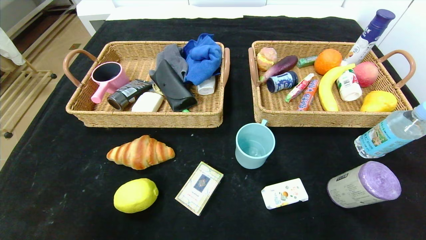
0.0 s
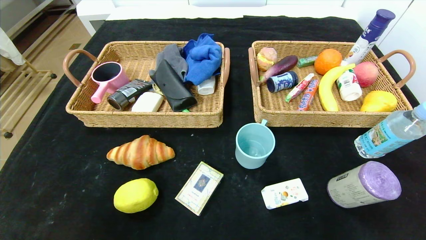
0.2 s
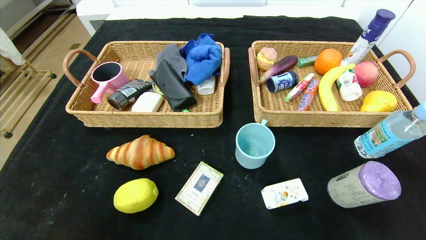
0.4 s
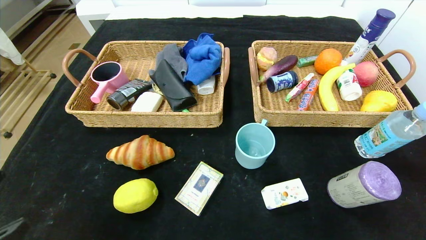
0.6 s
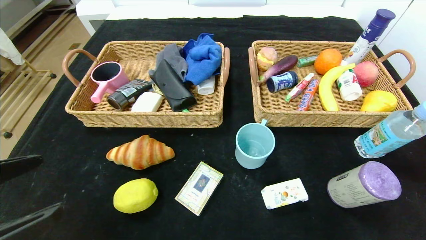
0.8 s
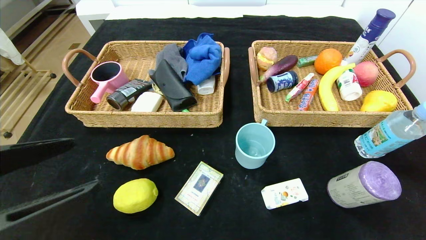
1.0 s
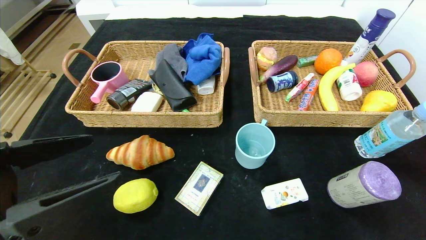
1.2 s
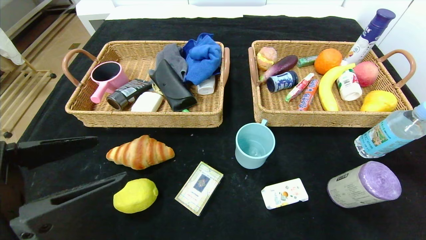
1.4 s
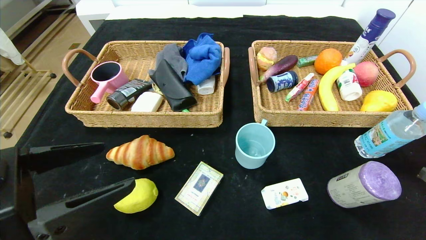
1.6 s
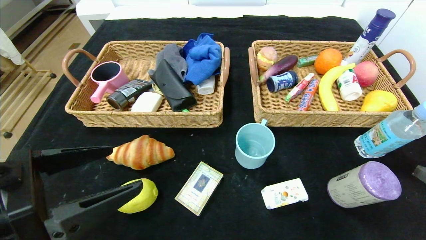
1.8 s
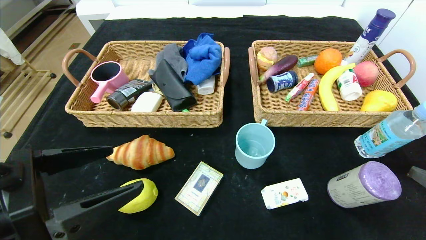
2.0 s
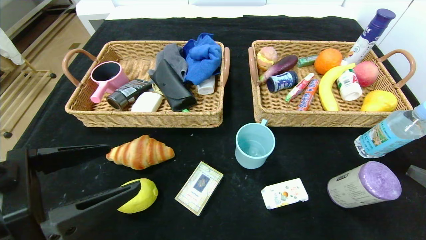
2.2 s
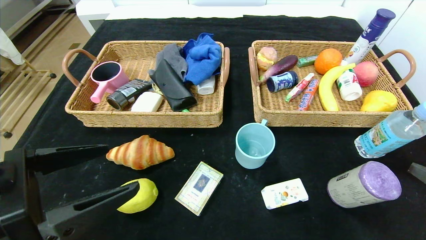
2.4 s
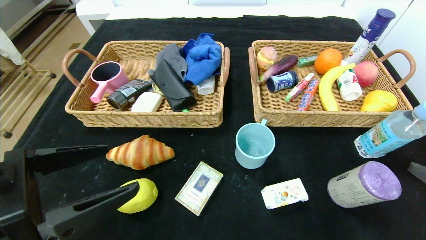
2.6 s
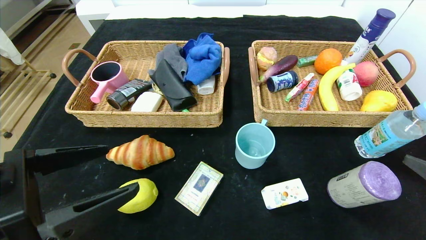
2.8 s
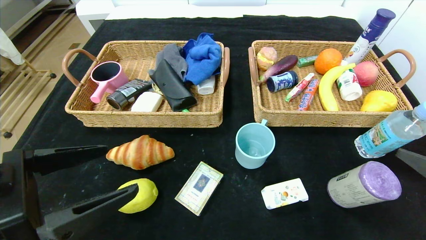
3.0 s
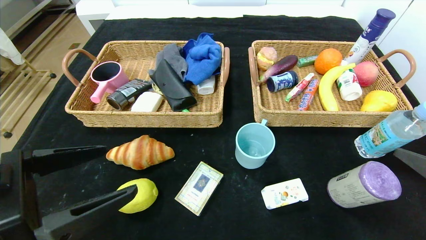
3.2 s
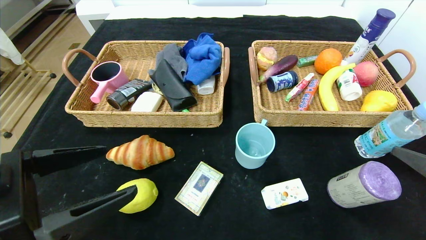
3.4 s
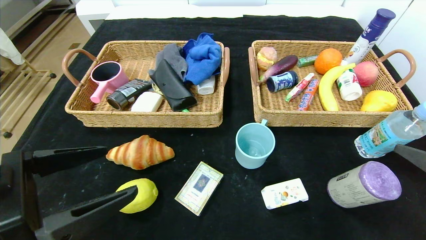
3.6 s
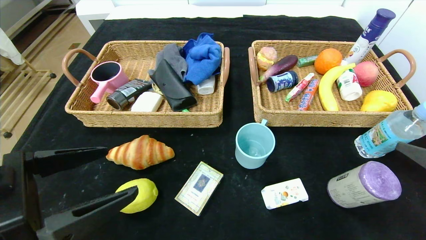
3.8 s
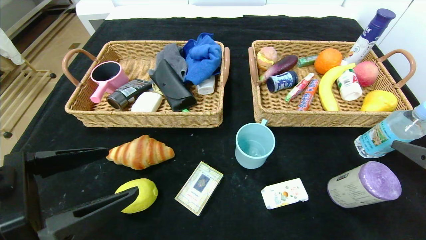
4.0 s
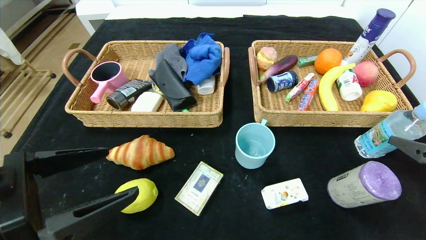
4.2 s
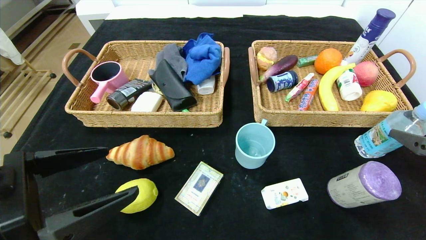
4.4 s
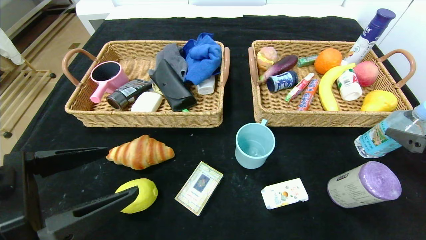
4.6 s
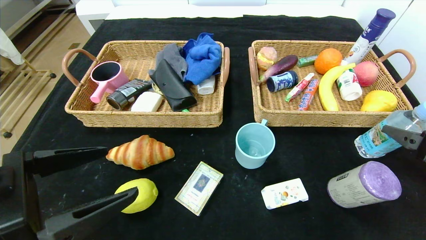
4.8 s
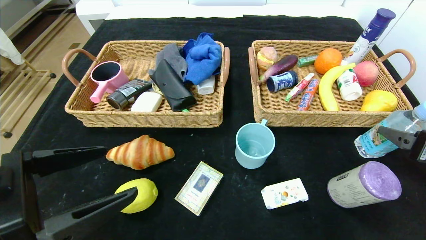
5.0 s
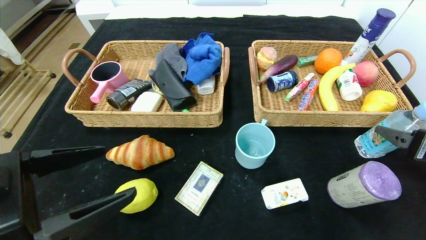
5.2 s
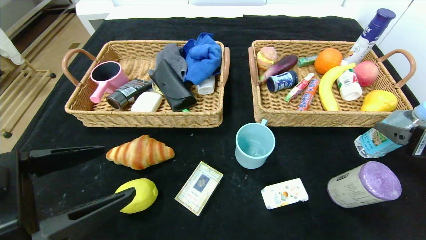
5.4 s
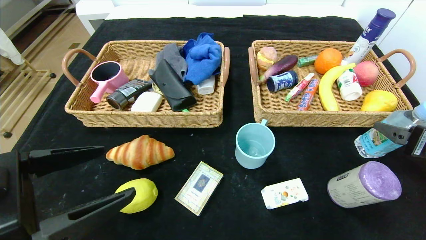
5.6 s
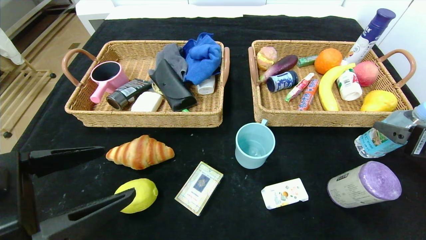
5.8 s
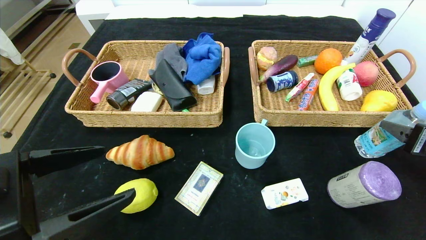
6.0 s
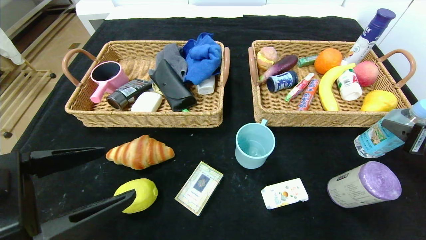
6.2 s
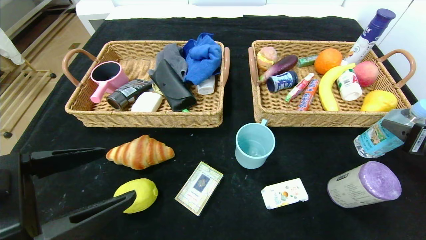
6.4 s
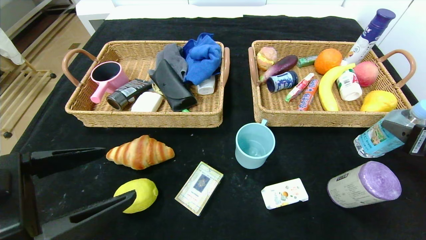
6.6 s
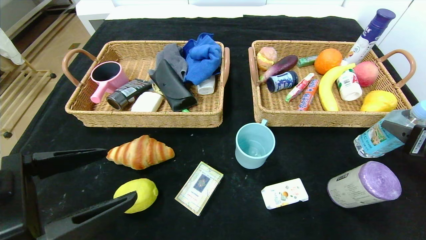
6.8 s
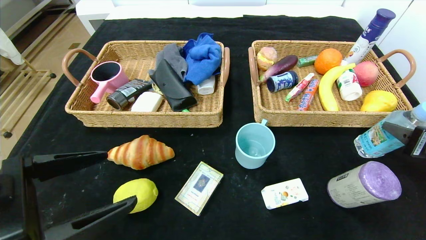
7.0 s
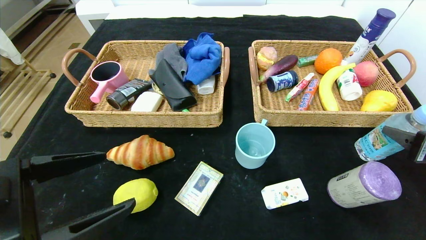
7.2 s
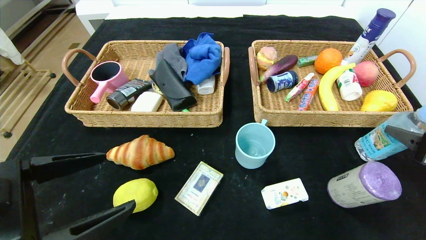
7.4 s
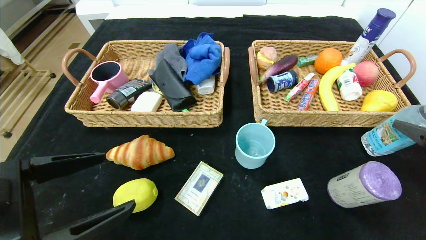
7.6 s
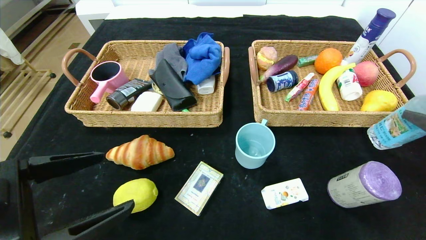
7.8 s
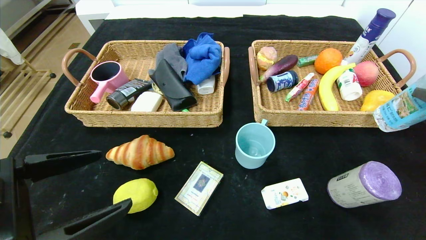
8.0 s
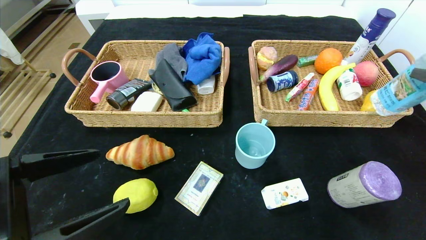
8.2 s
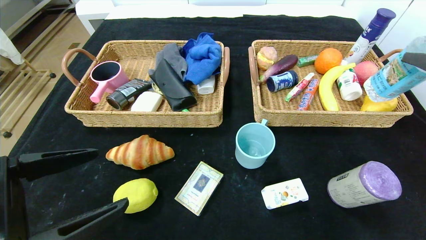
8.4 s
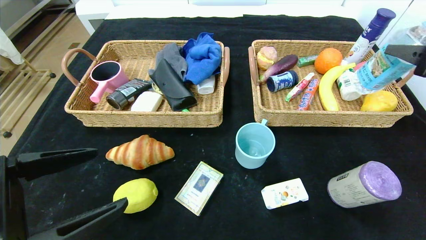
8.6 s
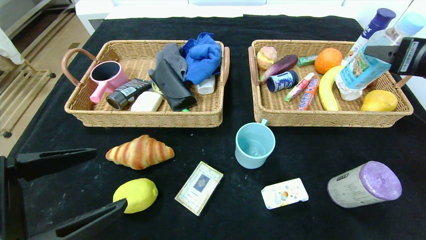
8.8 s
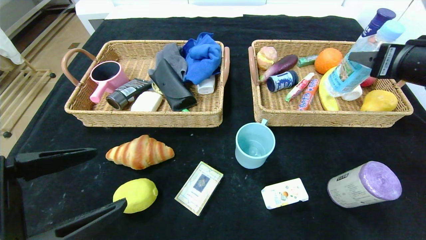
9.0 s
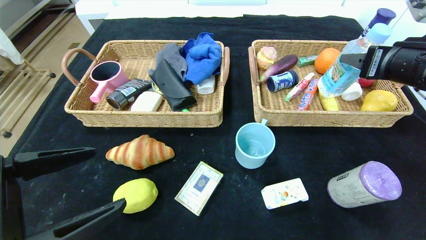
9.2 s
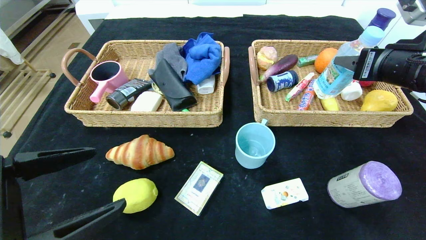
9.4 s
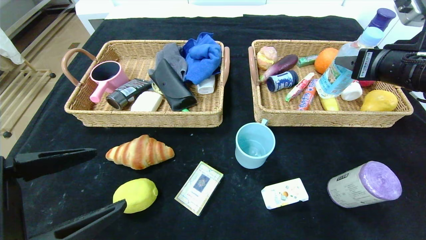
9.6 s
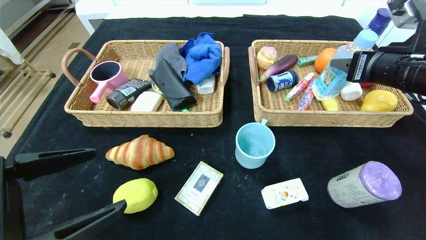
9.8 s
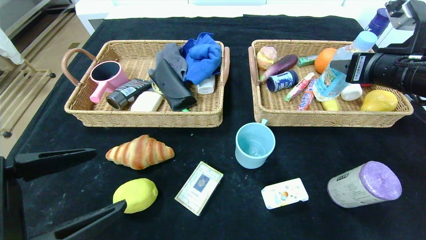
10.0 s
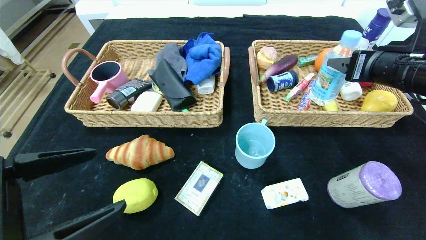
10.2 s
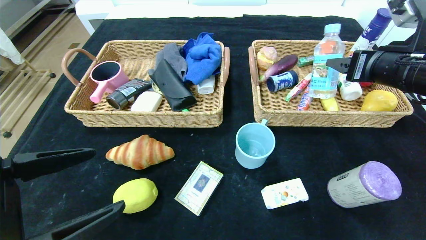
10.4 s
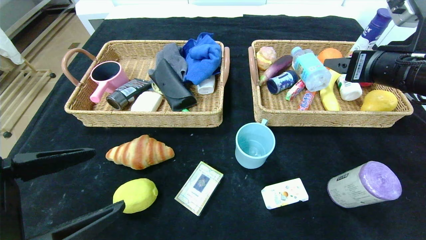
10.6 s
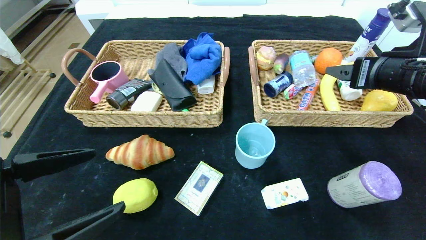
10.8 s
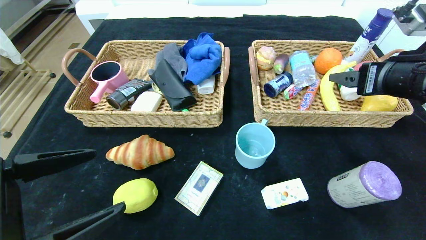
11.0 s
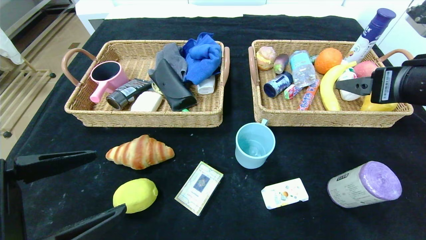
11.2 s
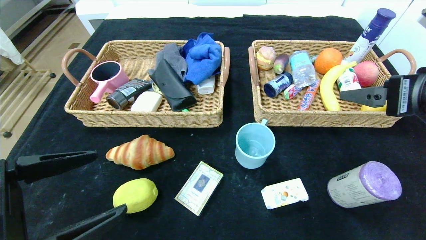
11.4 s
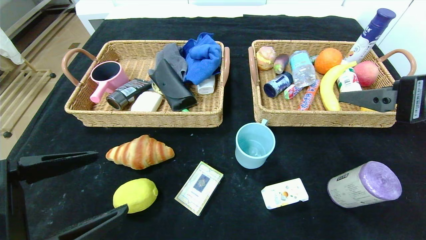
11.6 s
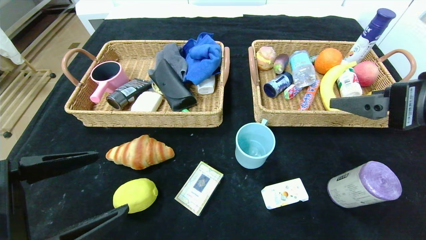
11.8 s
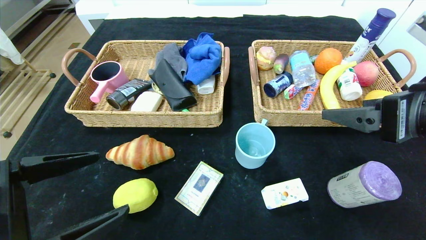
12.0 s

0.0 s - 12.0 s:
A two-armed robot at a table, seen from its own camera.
Step, 0.0 s - 10.6 s: Grasp the soda water and put it in the right basket.
0.0 s - 1.6 s: The left gripper heads forward, upward and to the right, covering some 20 cm, while the right gripper shifts about 15 cm forward and upward.
1.6 s - 3.0 s: The grippers stay close to where they were, moving slightly.
3.0 s - 4.4 s: The right gripper moves roughly 5 cm.
4.4 s - 6.0 s: The right gripper closes.
6.0 s - 7.6 s: The grippers make only small movements.
7.6 s - 9.0 s: The right gripper goes some 15 cm upward, forward and to the left.
9.0 s - 10.4 s: The right gripper opens.
10.4 s - 12.0 s: The right gripper travels backward by roughly 10 cm.

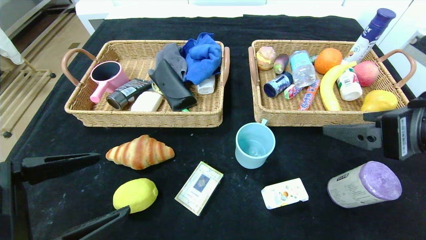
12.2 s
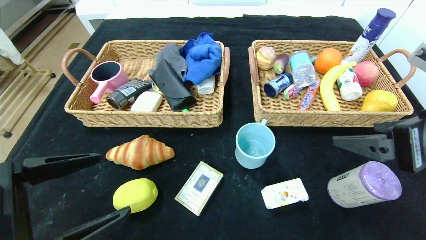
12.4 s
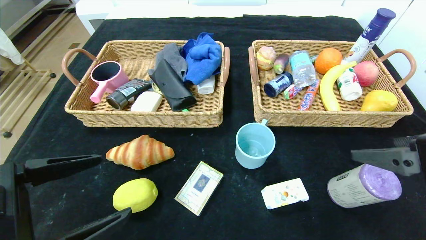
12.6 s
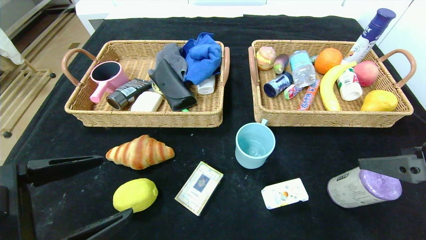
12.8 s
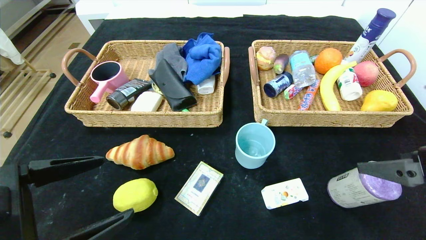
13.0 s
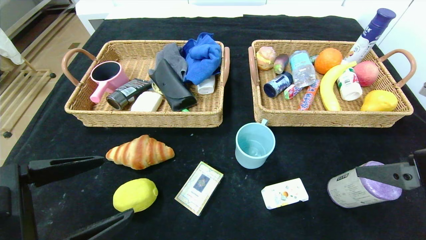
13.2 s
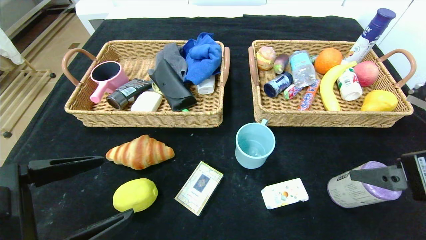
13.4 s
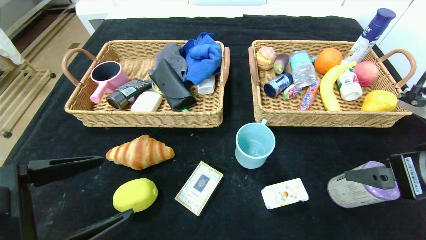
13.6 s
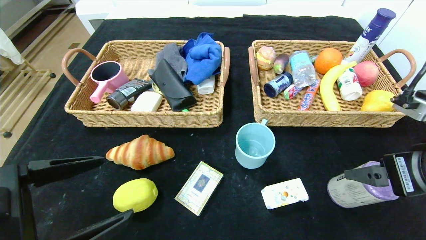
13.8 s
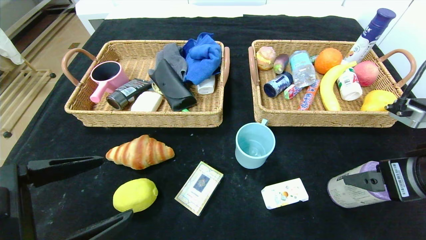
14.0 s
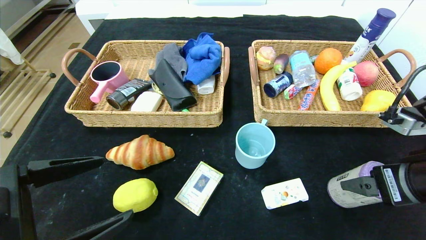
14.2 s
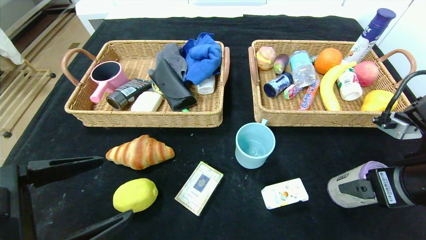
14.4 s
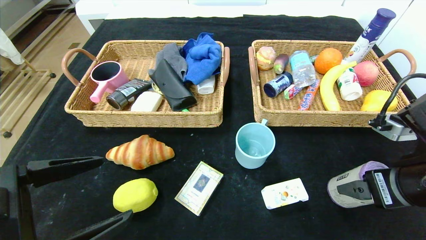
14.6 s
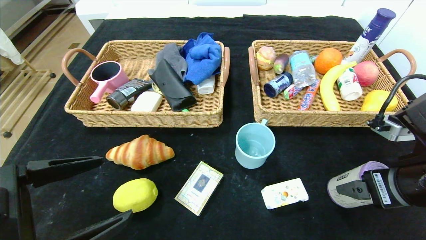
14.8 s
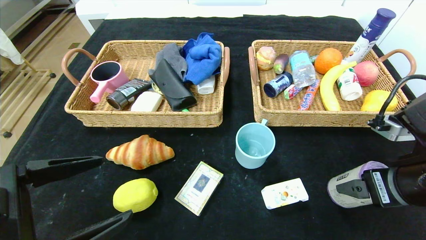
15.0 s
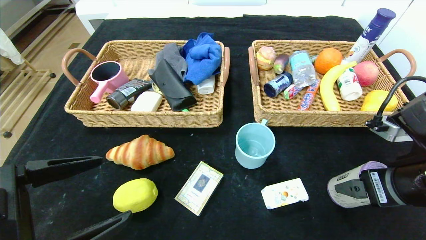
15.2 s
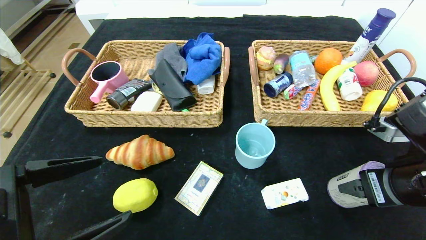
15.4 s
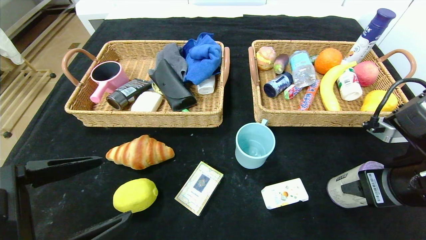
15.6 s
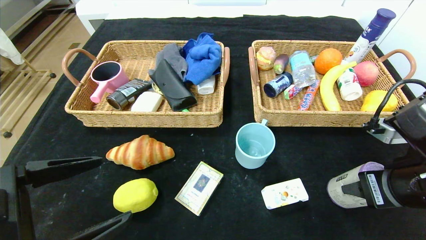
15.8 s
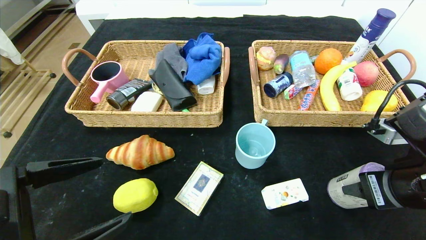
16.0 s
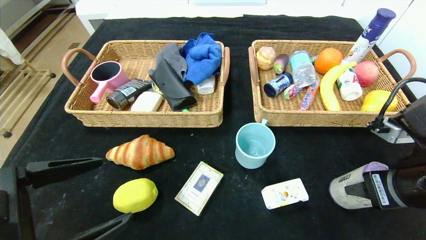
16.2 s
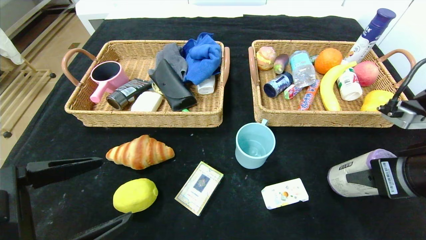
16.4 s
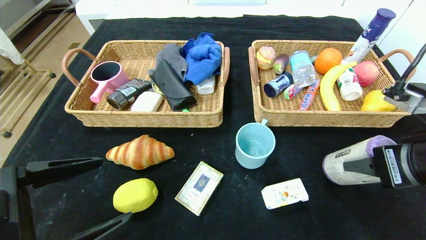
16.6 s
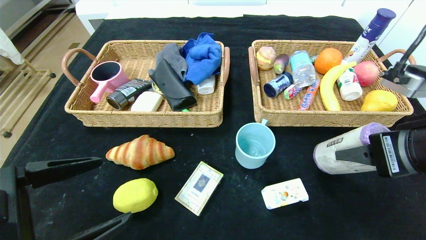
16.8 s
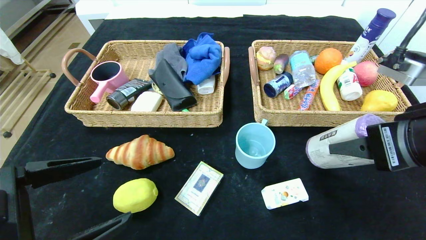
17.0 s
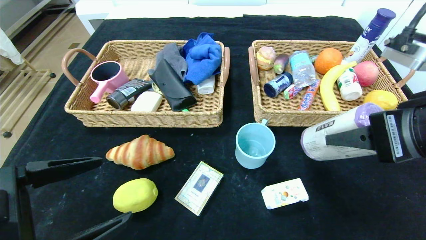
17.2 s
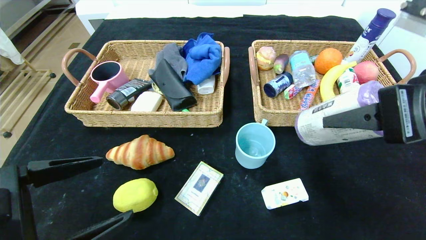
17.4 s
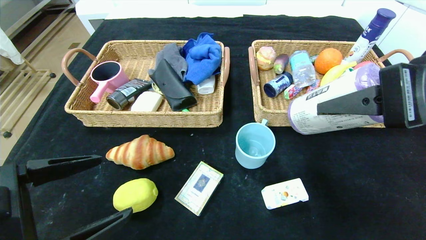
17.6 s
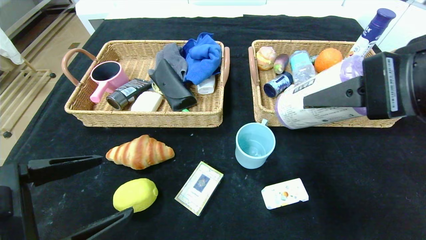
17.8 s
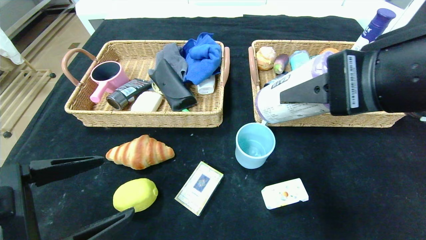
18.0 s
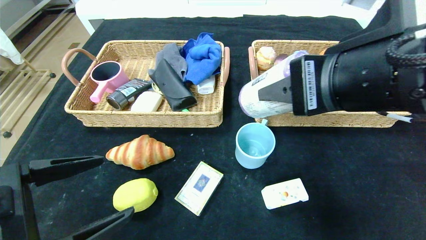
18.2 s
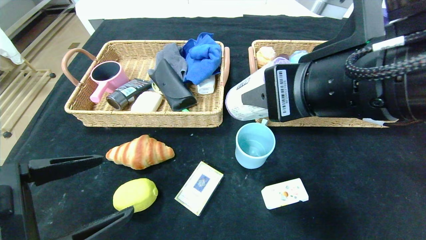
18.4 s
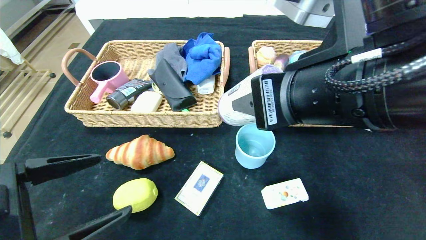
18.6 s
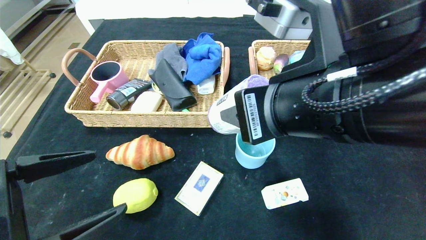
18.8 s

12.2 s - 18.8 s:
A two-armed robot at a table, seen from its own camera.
13.8 s - 15.4 s: The right gripper closes up.
15.4 s - 17.2 s: The right gripper heads upward, covering some 10 cm.
17.2 s - 18.8 s: The right gripper goes roughly 15 cm to the left.
